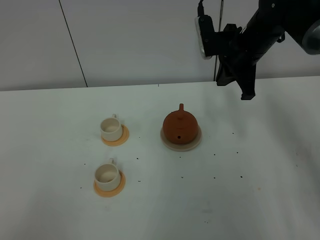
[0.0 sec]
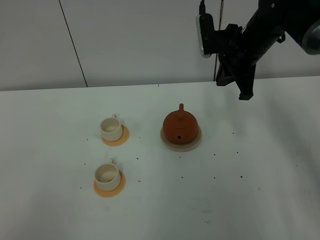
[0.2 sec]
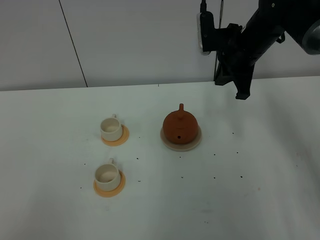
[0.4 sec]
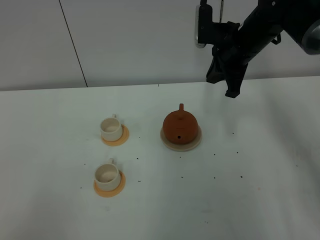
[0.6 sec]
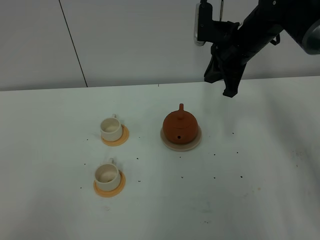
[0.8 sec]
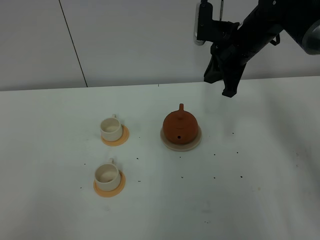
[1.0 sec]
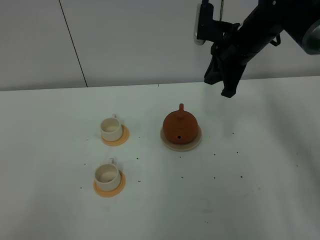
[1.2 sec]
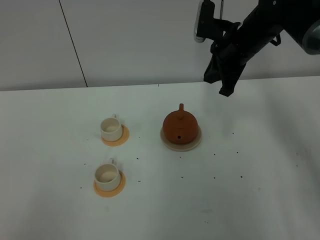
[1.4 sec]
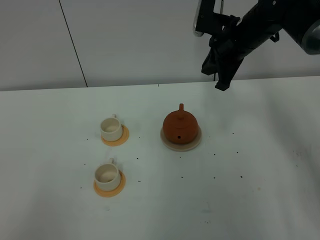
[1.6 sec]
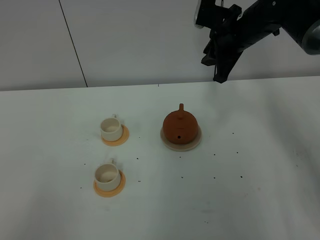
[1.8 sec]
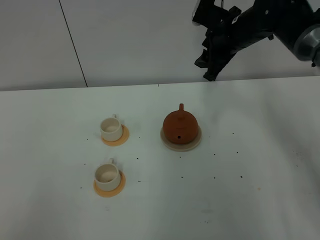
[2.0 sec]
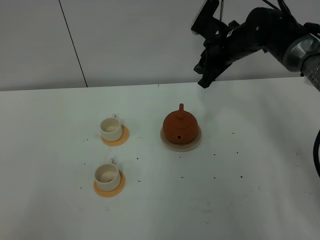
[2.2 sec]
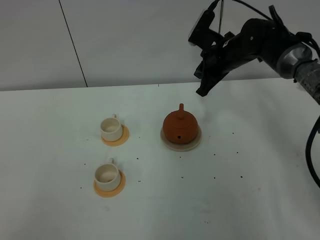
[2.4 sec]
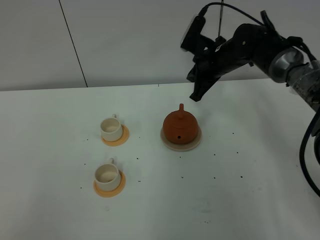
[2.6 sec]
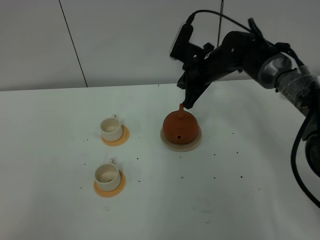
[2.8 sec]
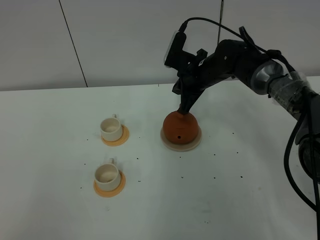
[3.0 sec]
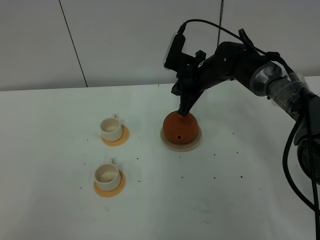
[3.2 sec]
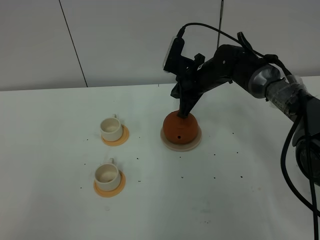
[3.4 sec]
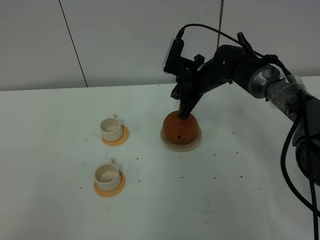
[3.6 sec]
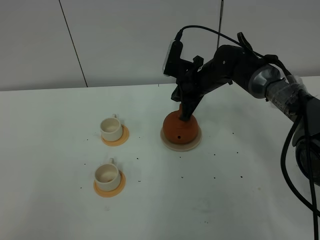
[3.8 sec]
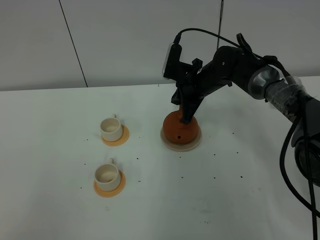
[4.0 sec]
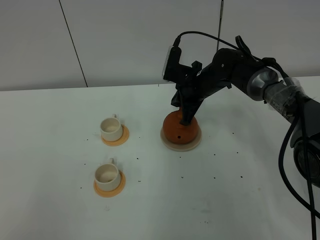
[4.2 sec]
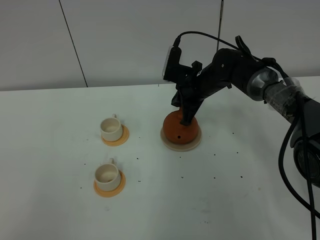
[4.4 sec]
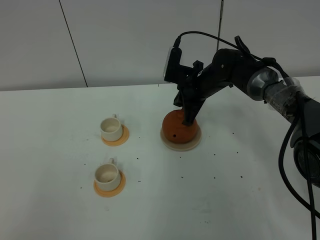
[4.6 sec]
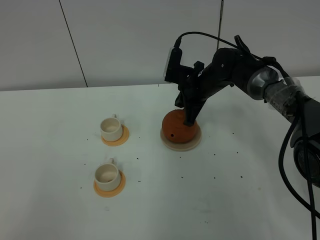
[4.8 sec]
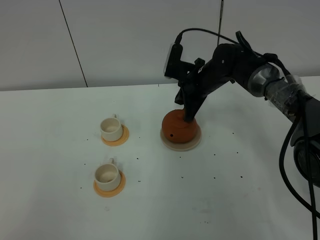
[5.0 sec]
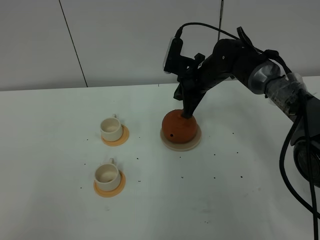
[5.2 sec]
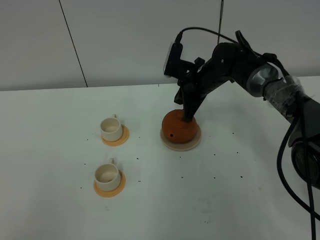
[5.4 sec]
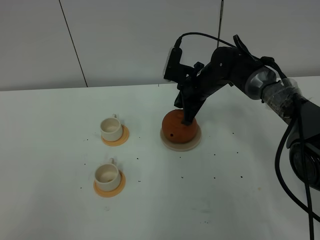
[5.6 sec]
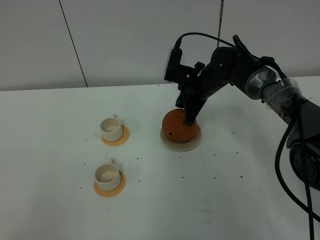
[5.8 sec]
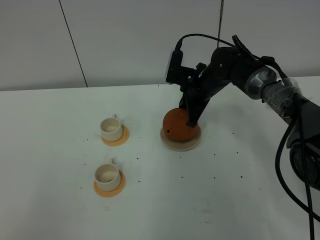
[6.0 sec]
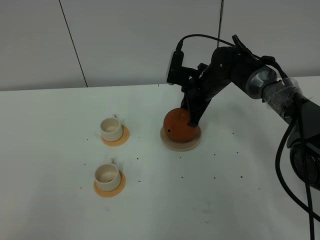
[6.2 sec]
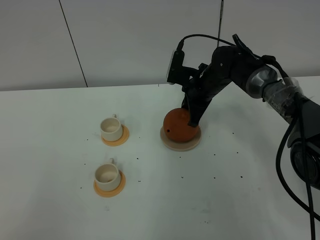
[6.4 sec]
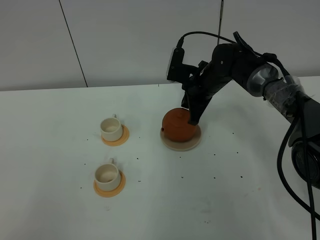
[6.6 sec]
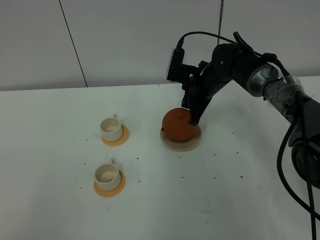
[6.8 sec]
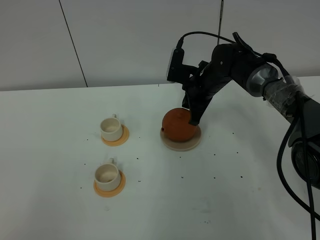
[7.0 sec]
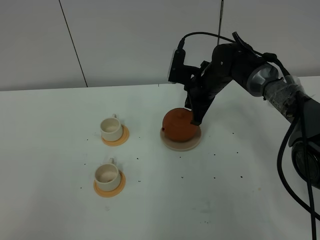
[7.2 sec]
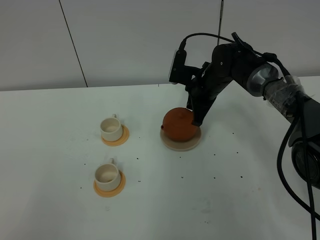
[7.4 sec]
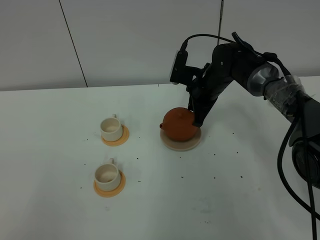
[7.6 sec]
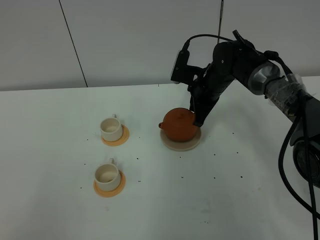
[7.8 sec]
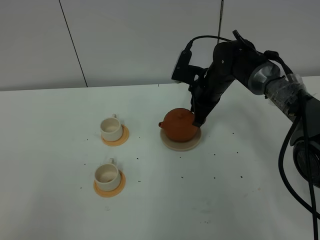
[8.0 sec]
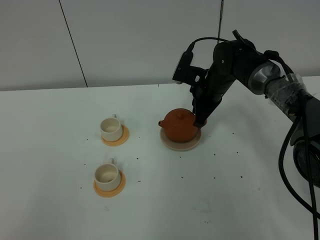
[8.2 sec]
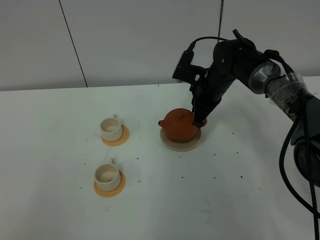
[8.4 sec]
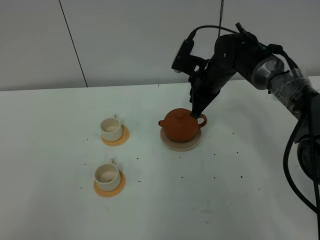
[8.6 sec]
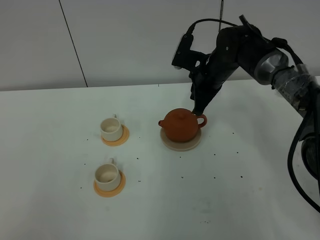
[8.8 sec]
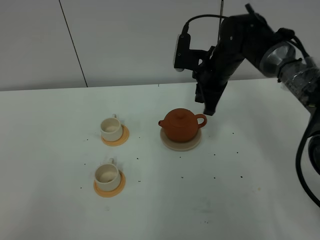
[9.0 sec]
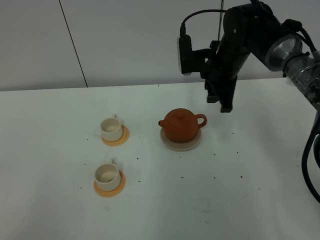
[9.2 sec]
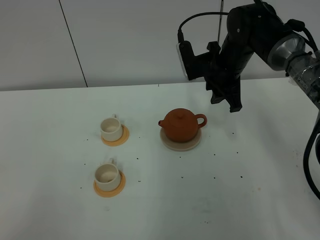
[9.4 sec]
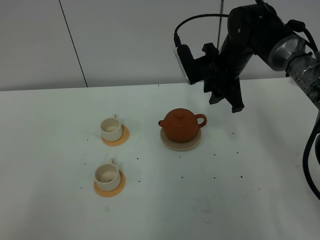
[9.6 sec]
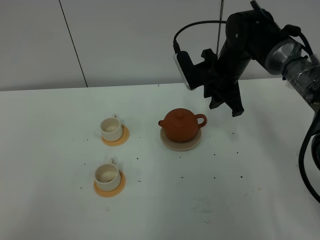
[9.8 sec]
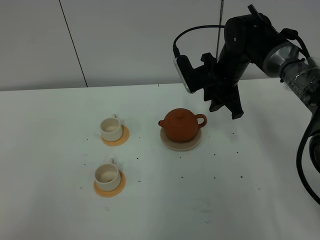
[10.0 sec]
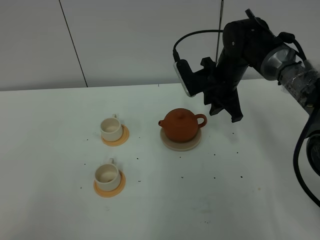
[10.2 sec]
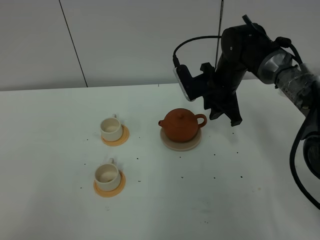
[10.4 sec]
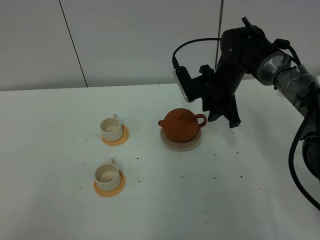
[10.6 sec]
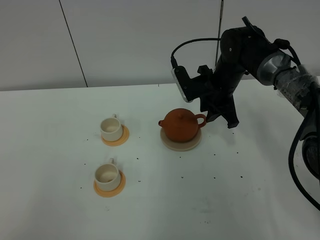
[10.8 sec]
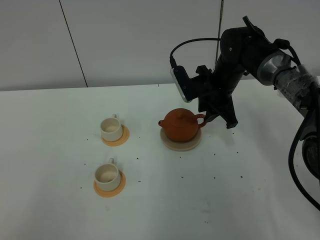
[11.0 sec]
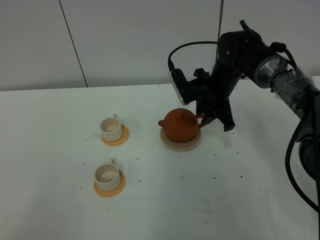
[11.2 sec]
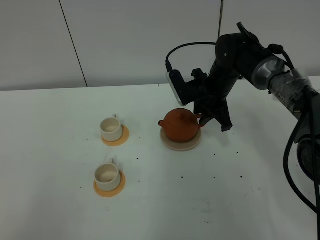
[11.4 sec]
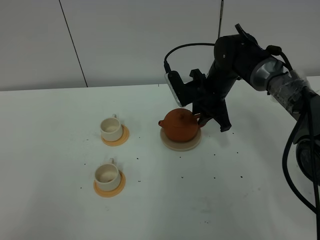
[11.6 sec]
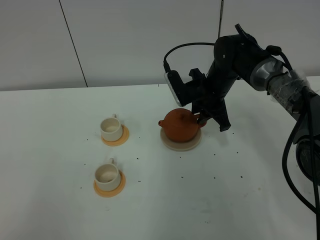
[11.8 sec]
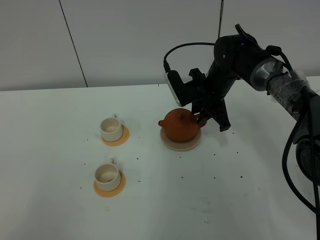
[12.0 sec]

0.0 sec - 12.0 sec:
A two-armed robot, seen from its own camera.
Task of the whole recording: grasp the brown teapot and pour the tea into the two white teacups one by one, put the brown teapot back in its original place.
1.6 sec - 3.0 sec: The right gripper goes roughly 10 cm downward and to the left, and opens, then closes again.
3.0 sec - 7.6 sec: There are only small adjustments of the grippers.
7.6 sec - 9.0 sec: The right gripper shifts roughly 5 cm upward, and opens its fingers.
10.4 sec - 12.0 sec: The grippers stay close to where they were, moving slightly.

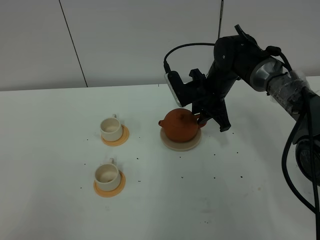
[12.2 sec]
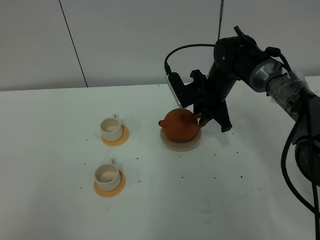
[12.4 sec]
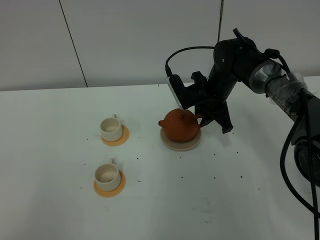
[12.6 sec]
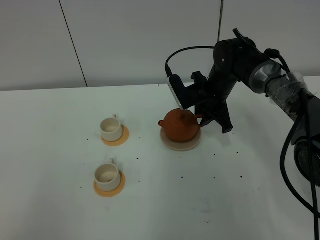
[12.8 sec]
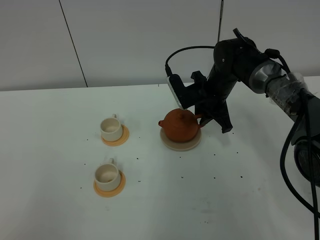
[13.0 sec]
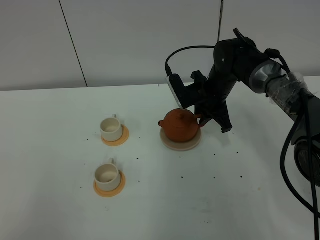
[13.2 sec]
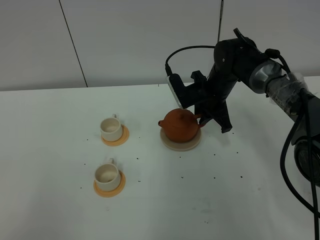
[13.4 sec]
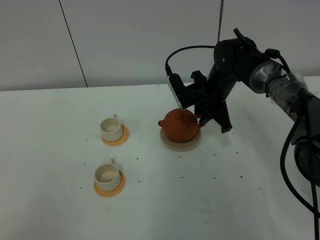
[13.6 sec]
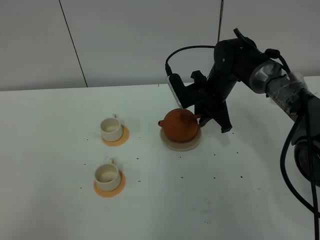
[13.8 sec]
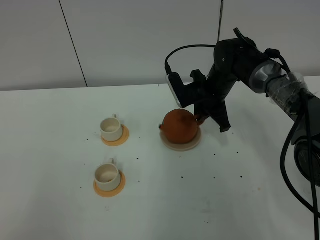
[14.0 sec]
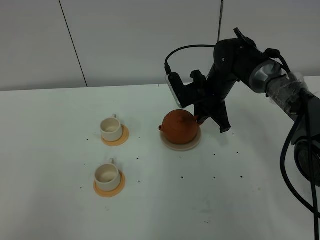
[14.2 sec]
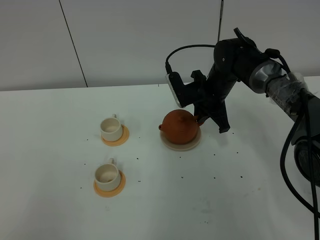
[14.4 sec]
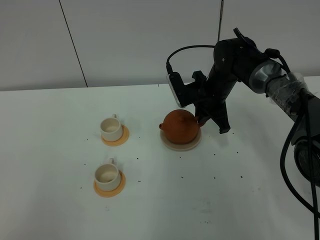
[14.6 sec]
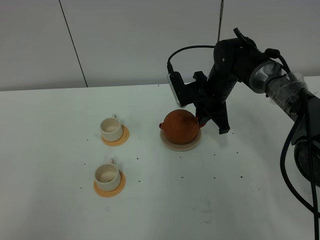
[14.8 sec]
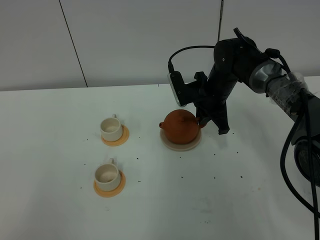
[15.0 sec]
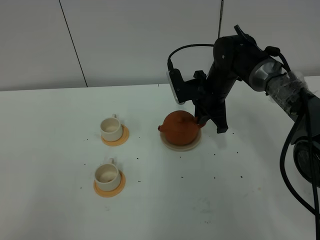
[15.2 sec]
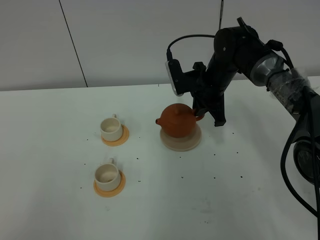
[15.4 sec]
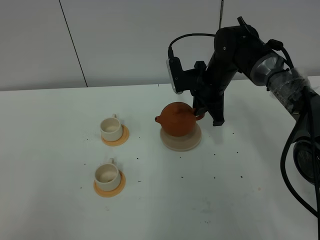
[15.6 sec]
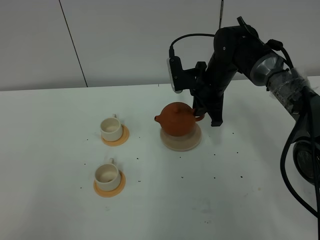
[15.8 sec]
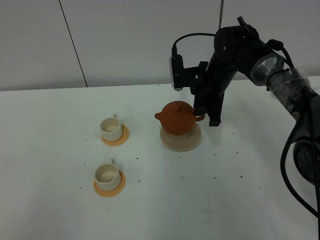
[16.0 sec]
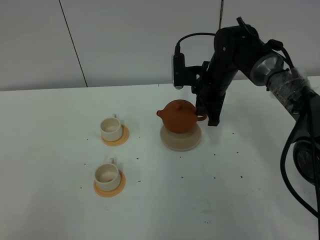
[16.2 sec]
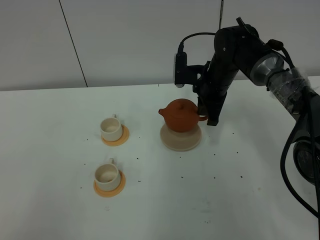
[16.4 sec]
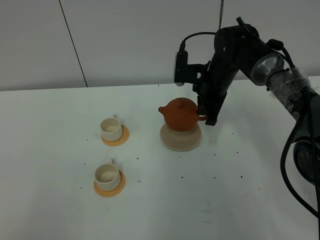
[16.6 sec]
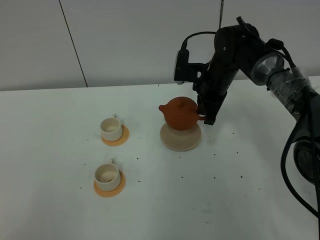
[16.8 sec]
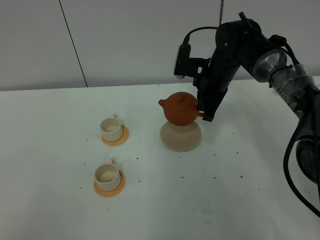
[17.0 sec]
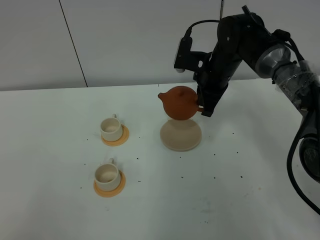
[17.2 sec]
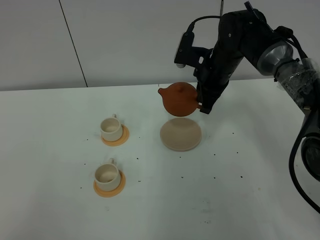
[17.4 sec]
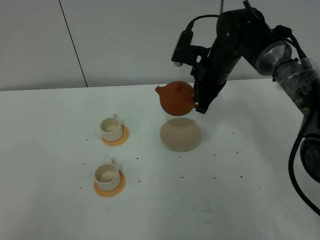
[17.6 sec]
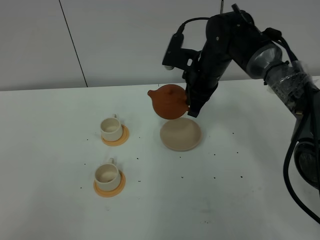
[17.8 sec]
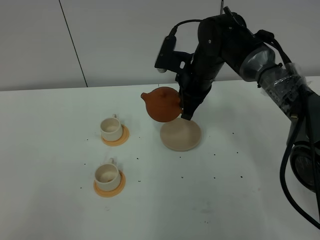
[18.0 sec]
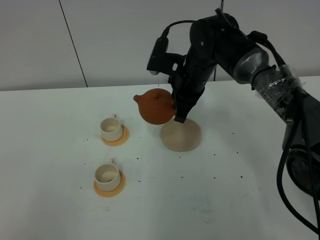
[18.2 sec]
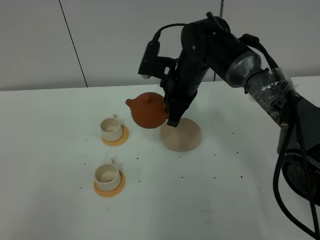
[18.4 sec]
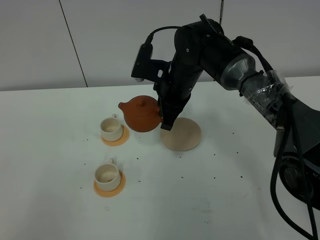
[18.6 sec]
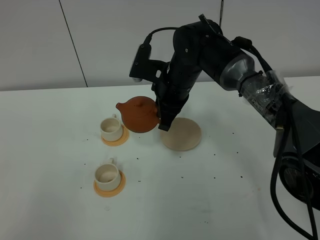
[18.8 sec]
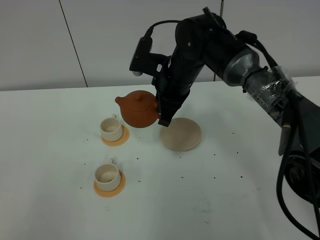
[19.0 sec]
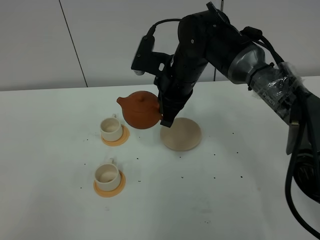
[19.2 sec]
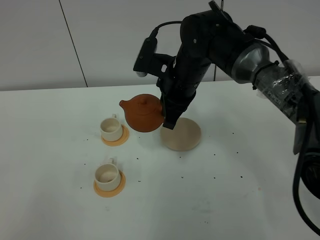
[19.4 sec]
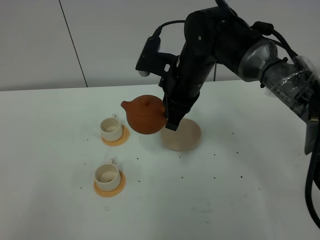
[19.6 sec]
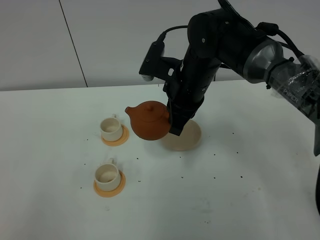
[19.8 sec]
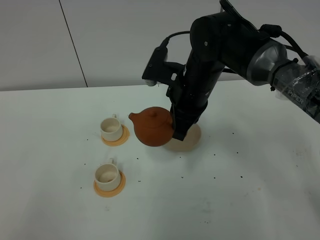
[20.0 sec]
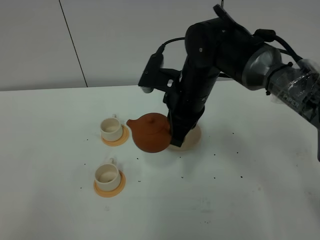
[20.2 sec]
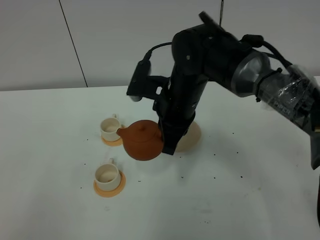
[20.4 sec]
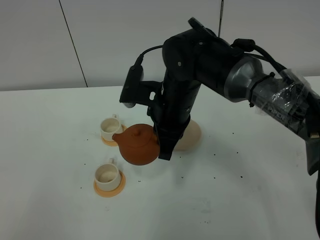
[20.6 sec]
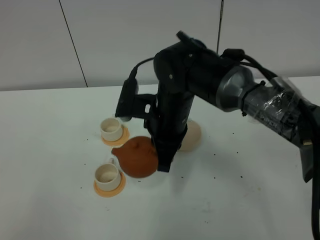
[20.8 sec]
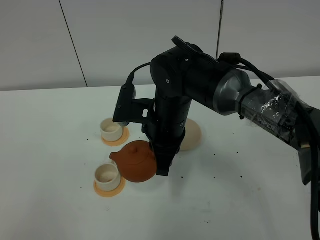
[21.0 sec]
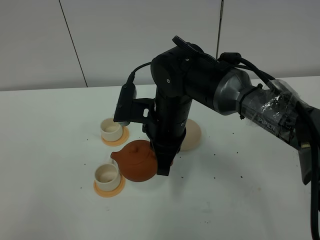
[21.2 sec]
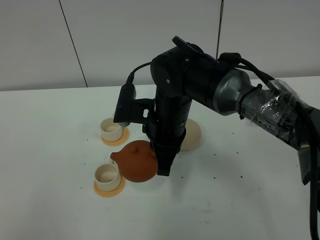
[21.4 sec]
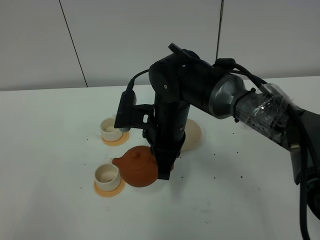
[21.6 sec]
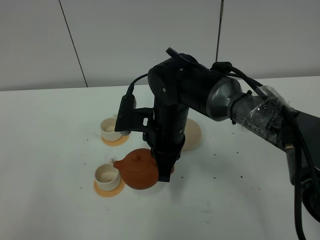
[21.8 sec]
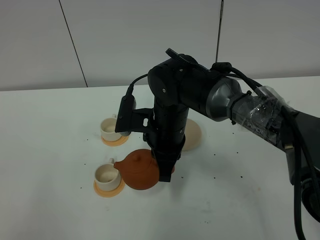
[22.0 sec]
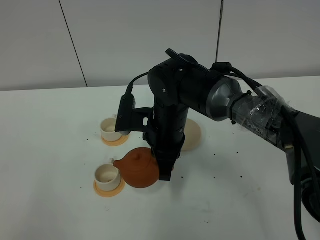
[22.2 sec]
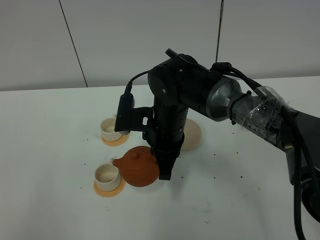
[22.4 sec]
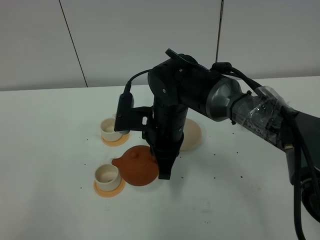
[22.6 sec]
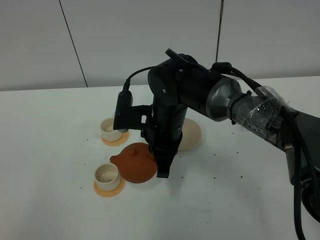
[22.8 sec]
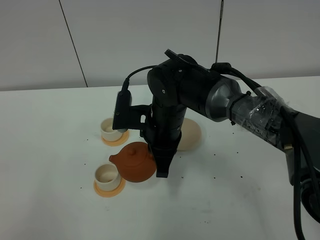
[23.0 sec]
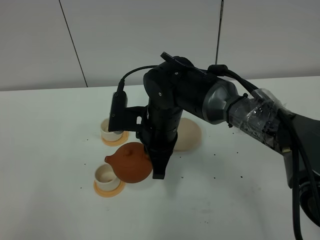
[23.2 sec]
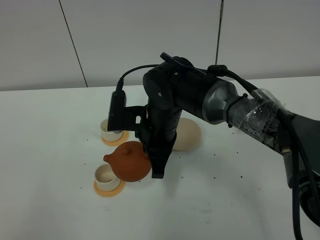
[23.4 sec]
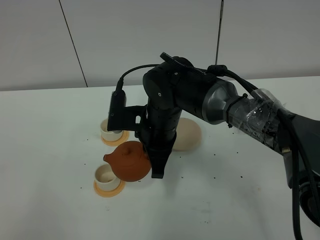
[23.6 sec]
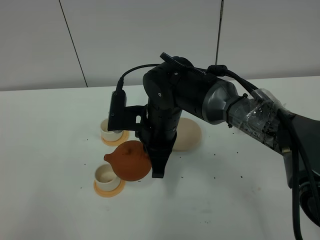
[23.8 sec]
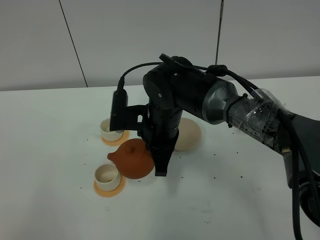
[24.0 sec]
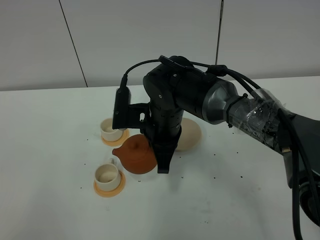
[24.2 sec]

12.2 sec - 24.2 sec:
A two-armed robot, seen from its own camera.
Task of the whole recording: grasp the brown teapot and pour the tea into the two white teacups one by one, put the brown teapot back in its original place.
Step, 12.2 sec - 16.6 sec: Pick up the teapot with the right gripper.
12.2 sec - 13.8 sec: Both grippers stay about where they are.
13.8 sec - 15.2 sec: The grippers make only small movements.
16.6 sec - 18.2 sec: The right gripper travels to the left by some 5 cm.
18.2 sec - 19.8 sec: The right gripper goes about 5 cm backward.
19.8 sec - 21.2 sec: The right gripper travels backward by roughly 5 cm.
21.2 sec - 24.2 sec: The grippers move only a little.
